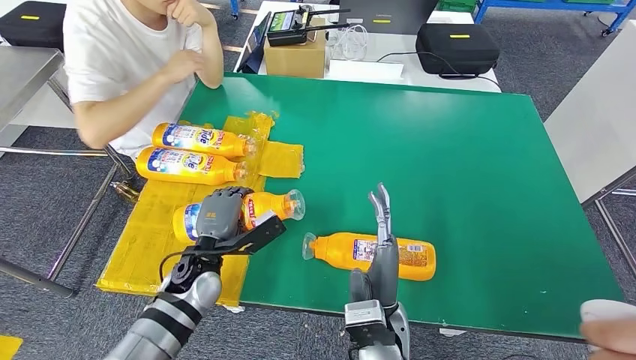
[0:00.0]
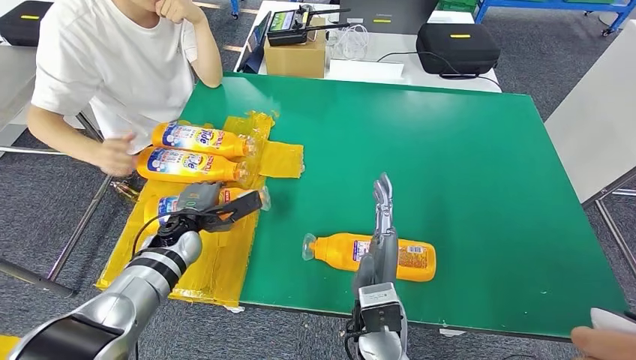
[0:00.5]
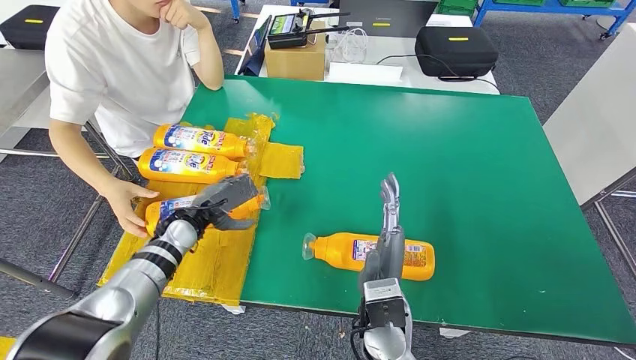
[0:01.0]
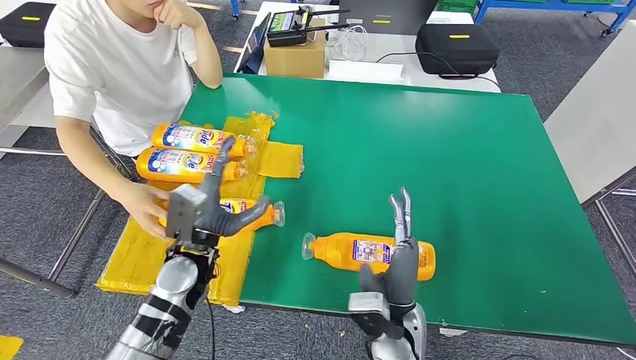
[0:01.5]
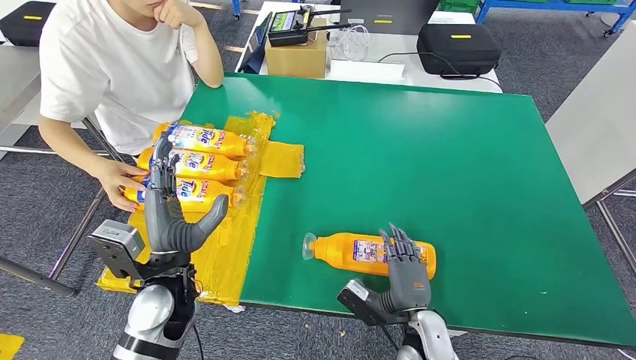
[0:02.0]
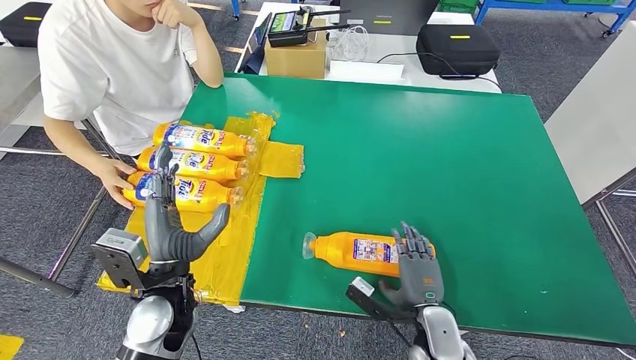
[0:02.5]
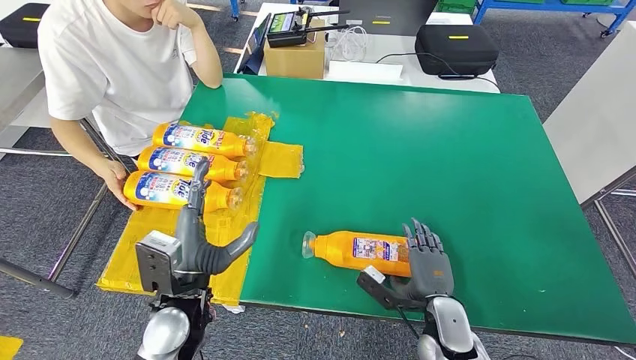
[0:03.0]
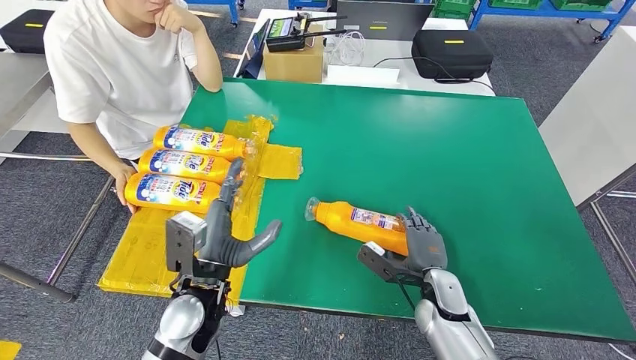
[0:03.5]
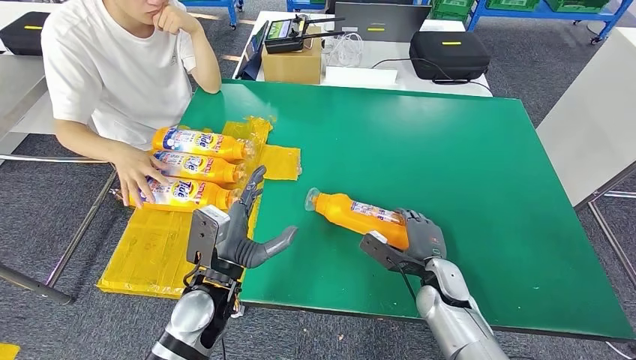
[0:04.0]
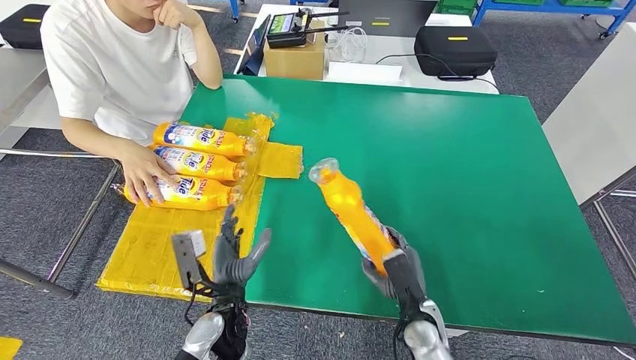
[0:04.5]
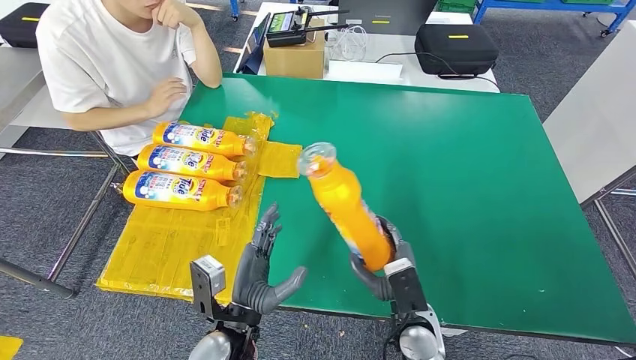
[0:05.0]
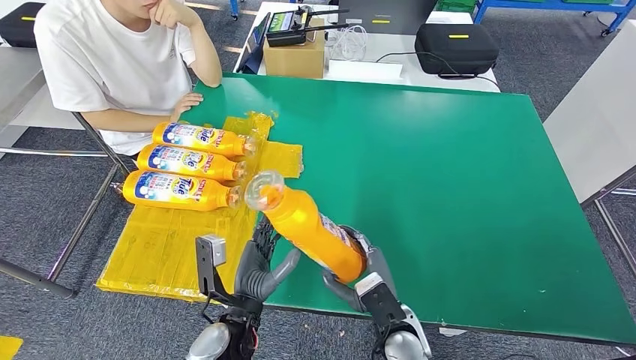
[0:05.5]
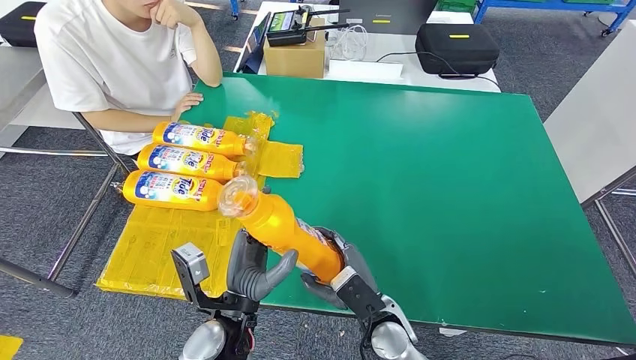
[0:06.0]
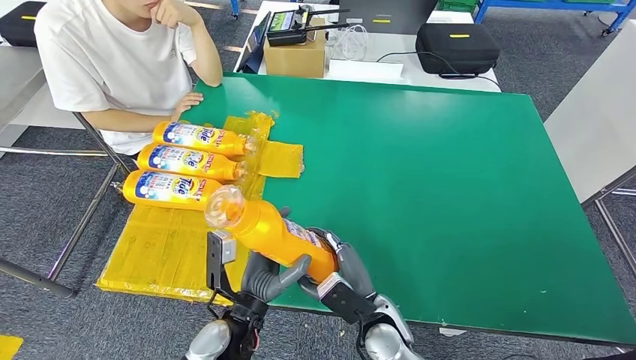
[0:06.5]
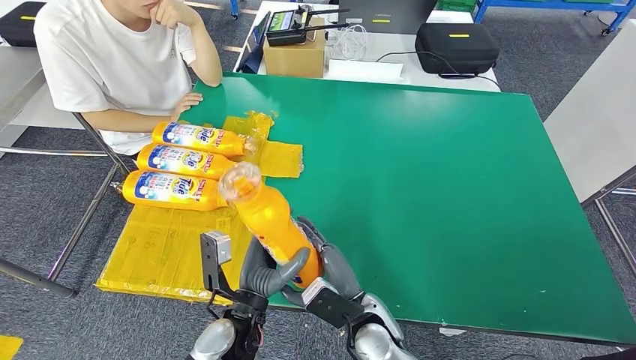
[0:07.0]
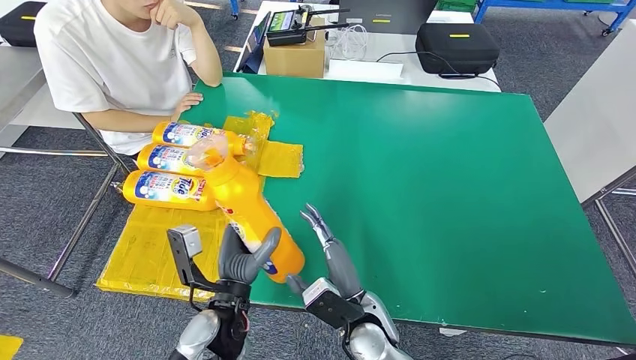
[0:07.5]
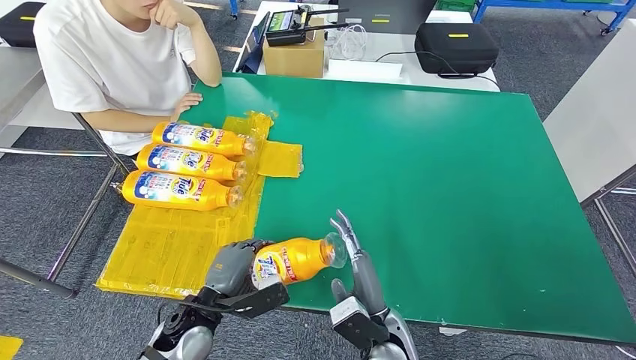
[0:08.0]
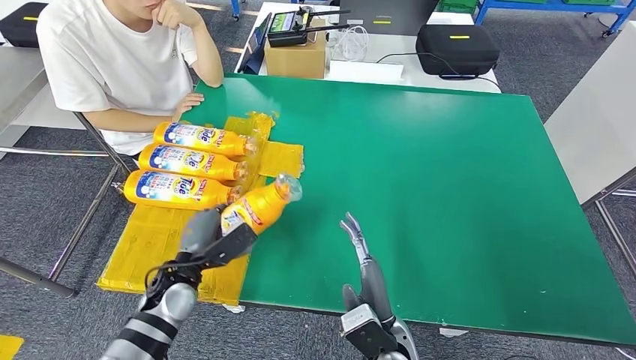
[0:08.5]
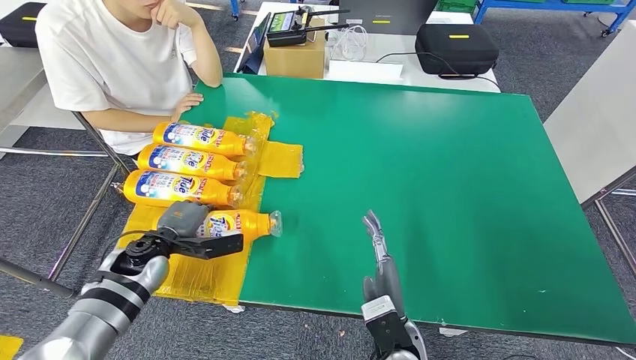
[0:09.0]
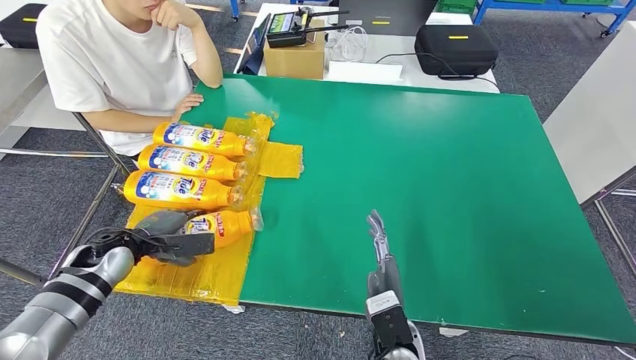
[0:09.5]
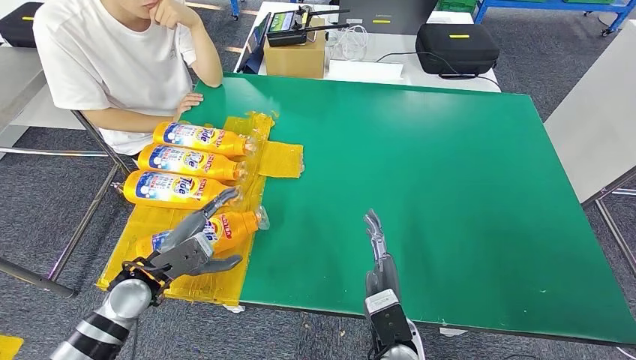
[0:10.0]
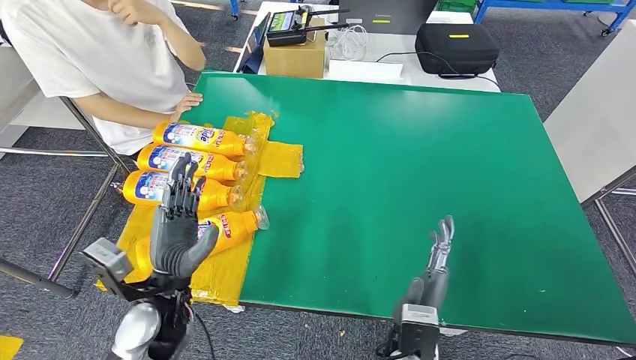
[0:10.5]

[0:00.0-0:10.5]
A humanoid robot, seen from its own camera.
Step, 0:02.0 to 0:04.5: Pick up the bottle from the table.
Step, 0:05.5 to 0:10.5: Flip the bottle to face forward.
0:06.5 to 0:08.5: The left hand travels to the left and forward by about 15 cm.
0:08.5 to 0:10.5: The left hand heads upward and backward, covering approximately 10 cm, and reaches about 15 cm to the left, then returns.
